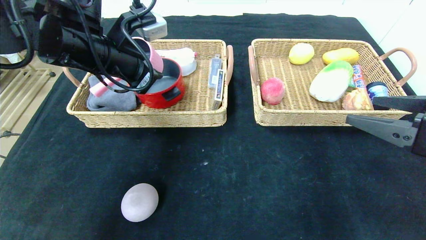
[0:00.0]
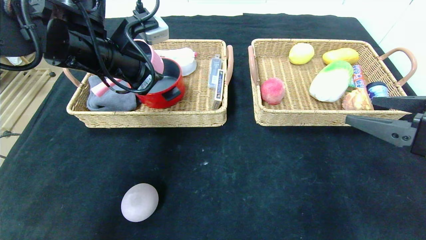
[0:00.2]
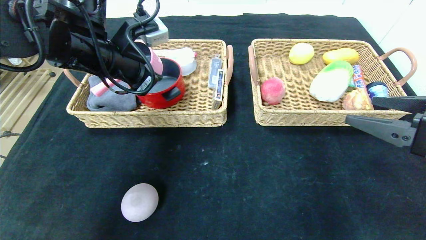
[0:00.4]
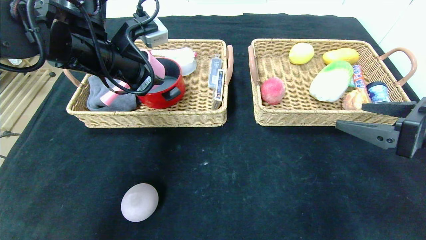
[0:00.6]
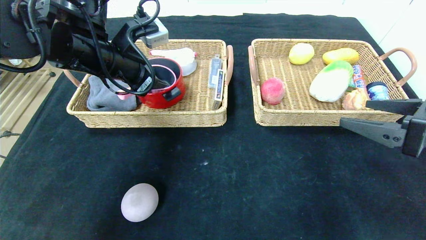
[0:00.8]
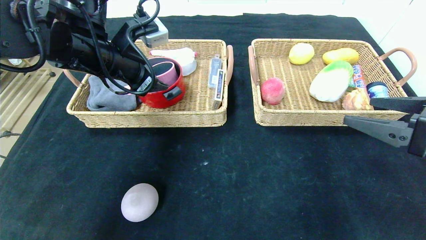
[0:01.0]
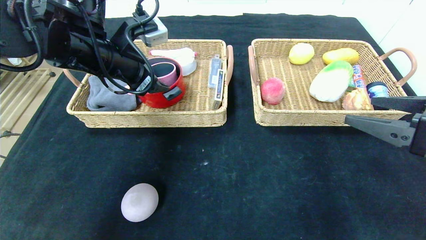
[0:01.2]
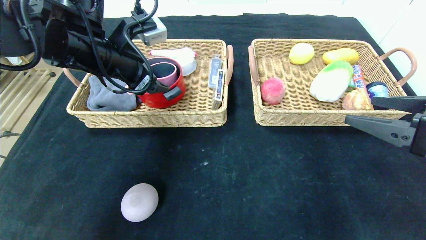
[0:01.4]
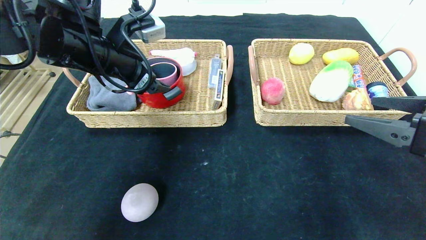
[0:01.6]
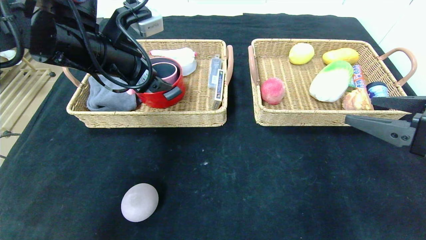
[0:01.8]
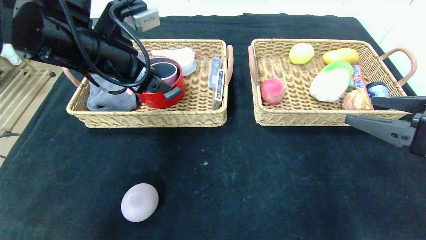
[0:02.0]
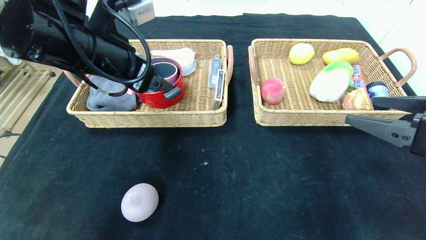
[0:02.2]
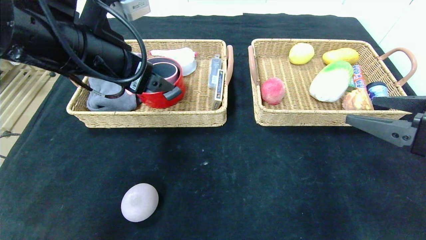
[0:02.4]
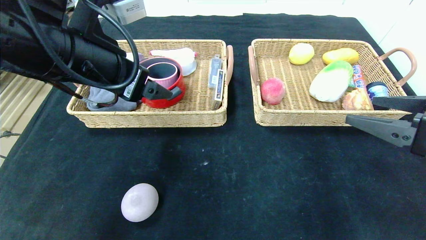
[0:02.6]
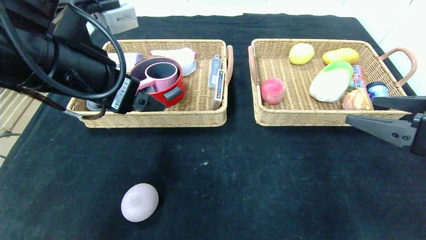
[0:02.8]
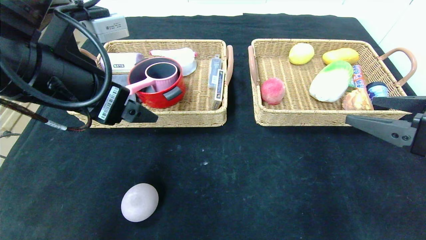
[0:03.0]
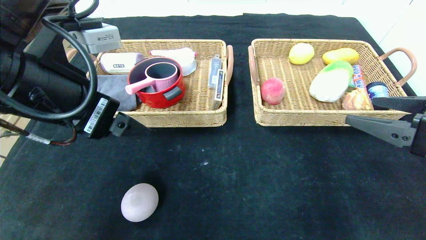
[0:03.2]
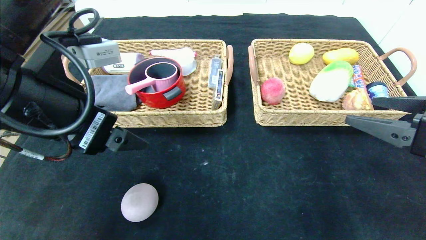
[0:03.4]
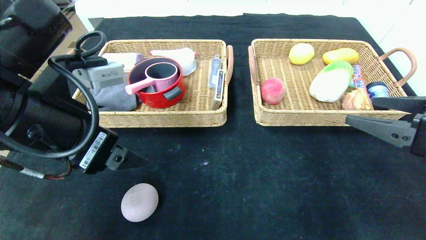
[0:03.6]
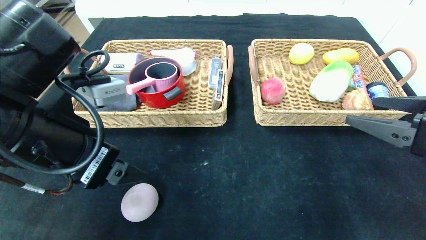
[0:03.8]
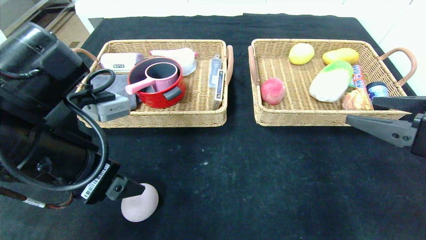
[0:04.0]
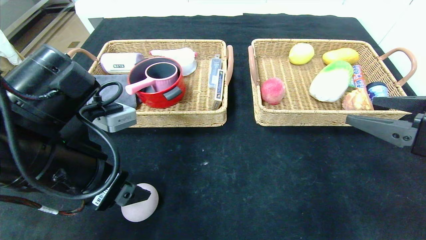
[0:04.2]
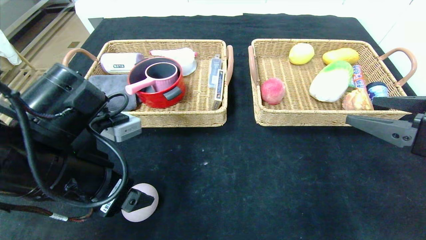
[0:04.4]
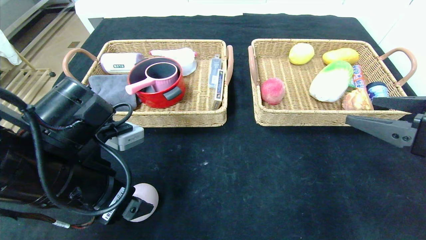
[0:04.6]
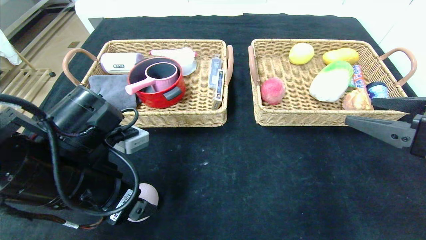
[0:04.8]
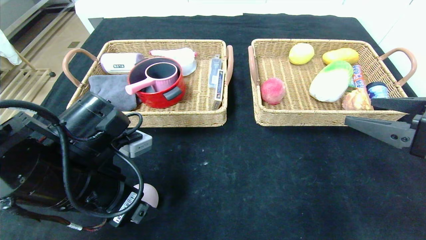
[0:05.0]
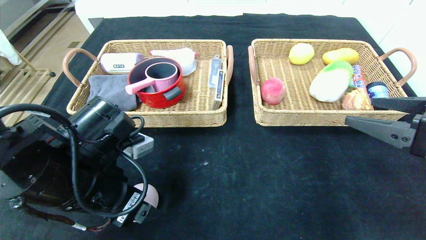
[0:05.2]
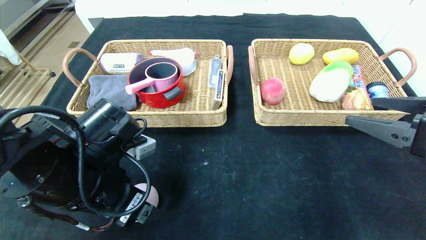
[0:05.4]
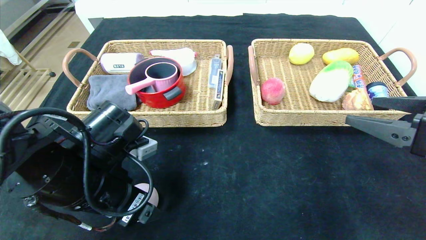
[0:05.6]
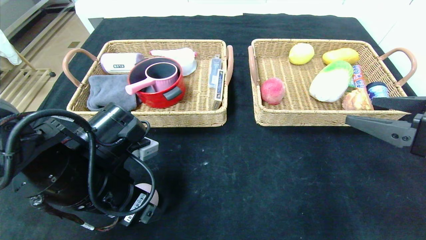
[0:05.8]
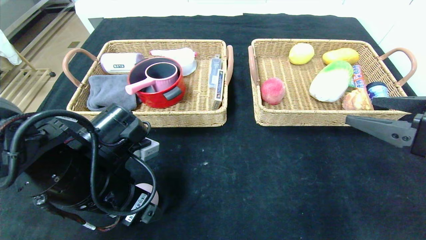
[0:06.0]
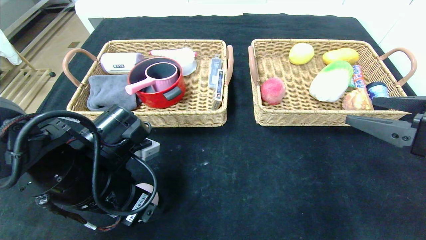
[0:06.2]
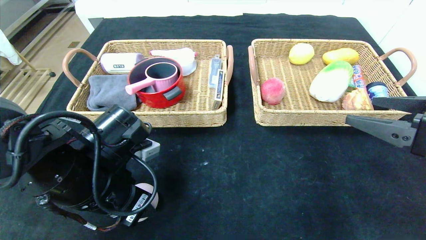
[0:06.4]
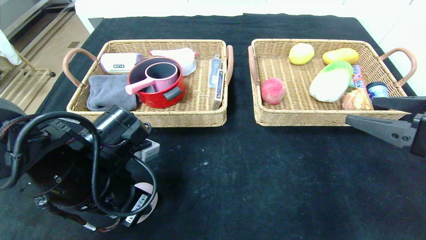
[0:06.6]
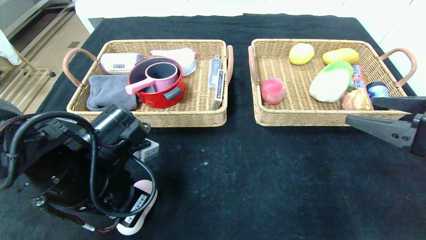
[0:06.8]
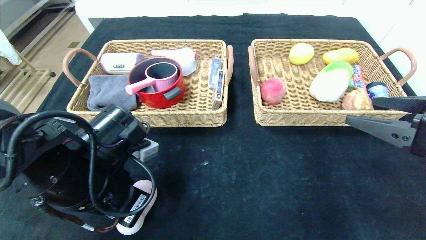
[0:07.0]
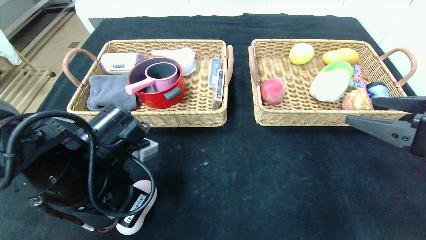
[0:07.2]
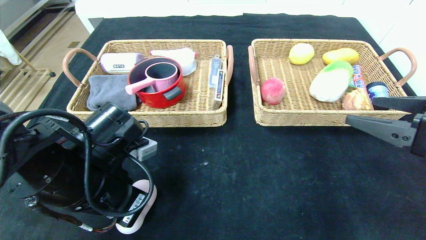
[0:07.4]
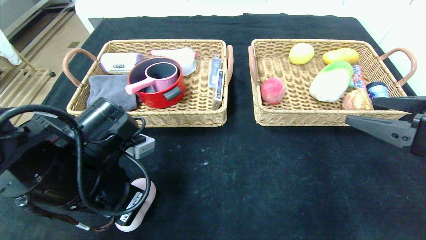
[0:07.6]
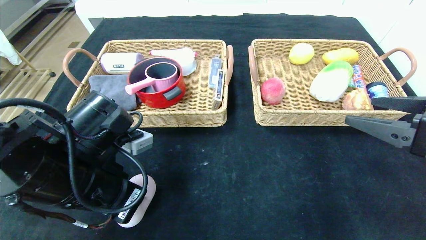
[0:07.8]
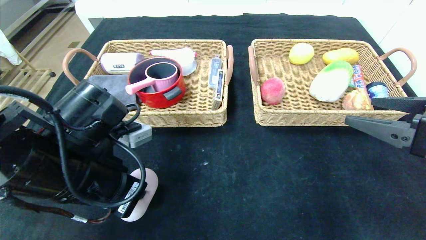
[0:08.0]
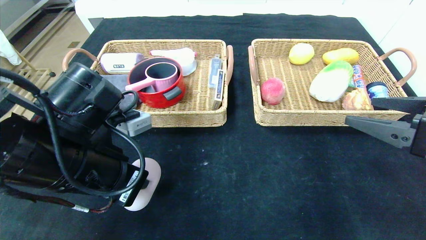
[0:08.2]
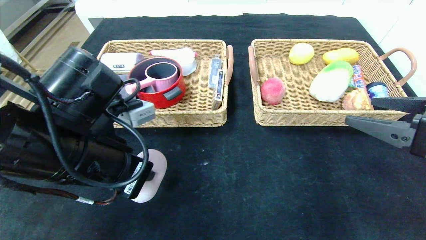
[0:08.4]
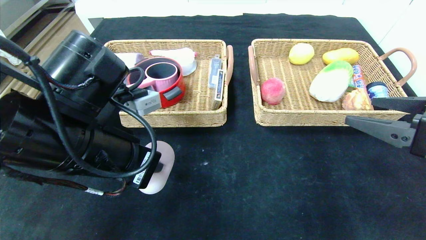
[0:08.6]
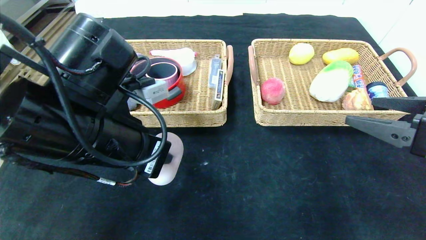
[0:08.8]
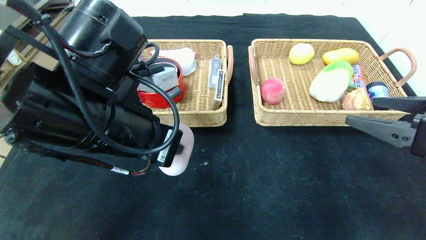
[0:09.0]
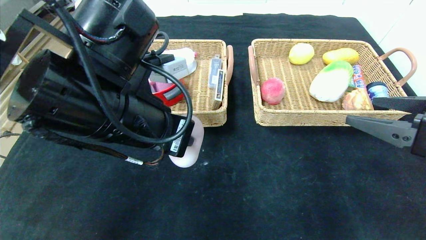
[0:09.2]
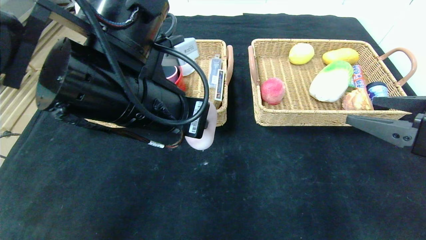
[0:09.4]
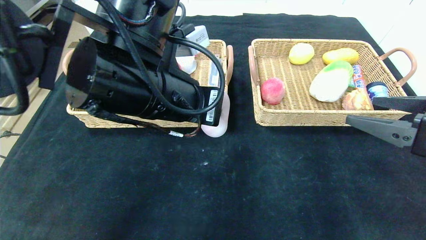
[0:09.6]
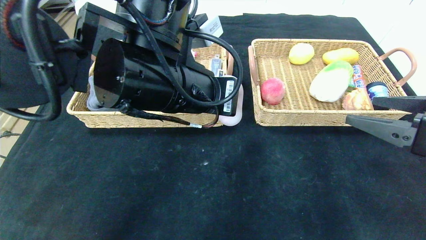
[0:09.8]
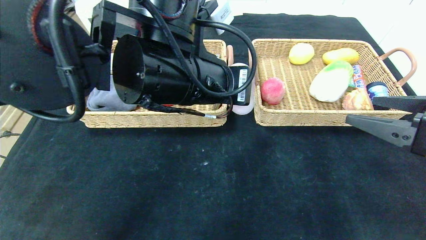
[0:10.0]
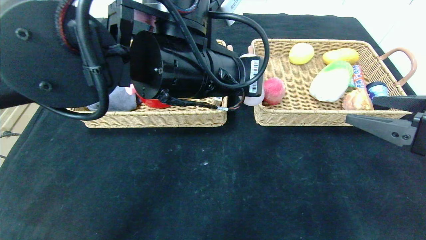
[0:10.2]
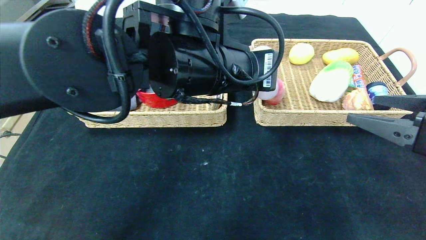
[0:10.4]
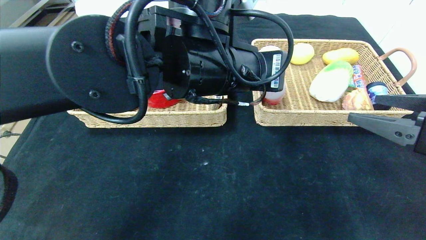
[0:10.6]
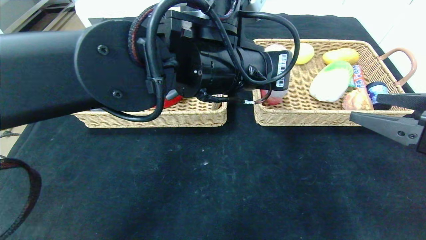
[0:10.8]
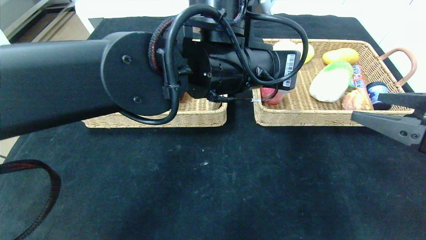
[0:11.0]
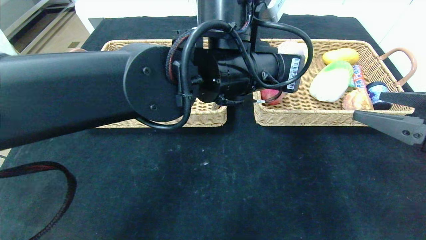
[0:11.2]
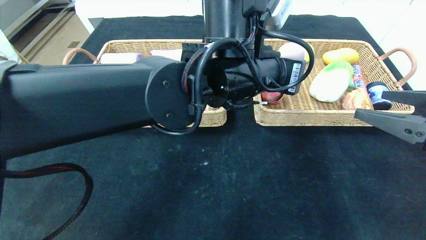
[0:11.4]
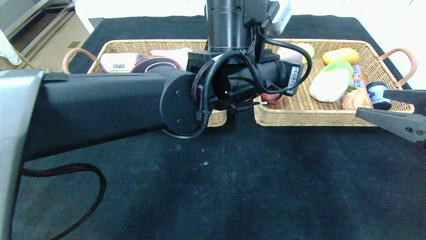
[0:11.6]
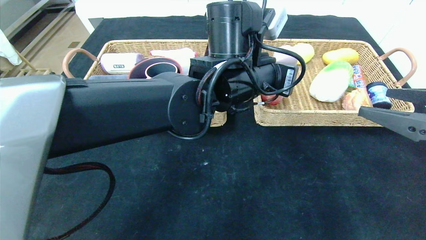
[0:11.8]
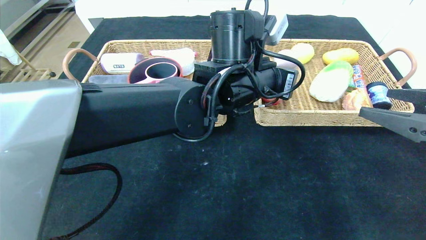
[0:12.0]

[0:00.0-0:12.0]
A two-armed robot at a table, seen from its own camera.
0:00.0 to 0:01.6: The left gripper opens up.
0:01.6 to 0:03.0: The left gripper is displaced backward by about 10 cm.
0:03.0 to 0:04.4: The left gripper heads downward, covering roughly 10 cm.
0:04.4 to 0:06.0: The left gripper ends up about 5 cm from where it was.
0:06.0 to 0:07.6: The left gripper closes.
0:07.6 to 0:09.0: The left gripper shifts about 10 cm upward and to the right.
0:09.0 to 0:10.4: The left gripper moves to the right, about 10 cm.
0:10.4 to 0:12.0: The left gripper heads forward and to the right, covering approximately 10 cm.

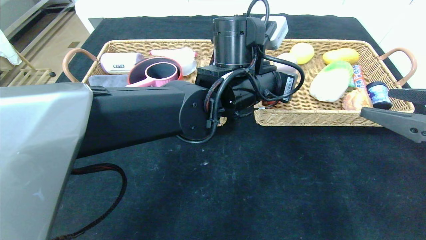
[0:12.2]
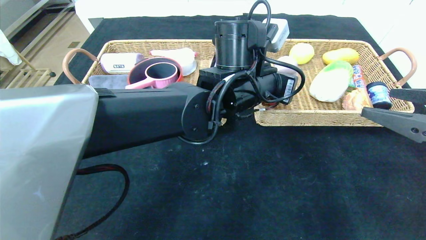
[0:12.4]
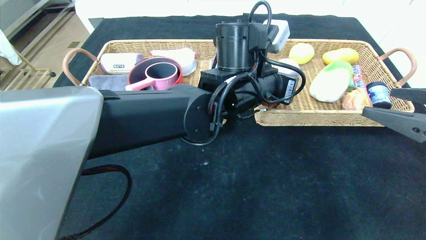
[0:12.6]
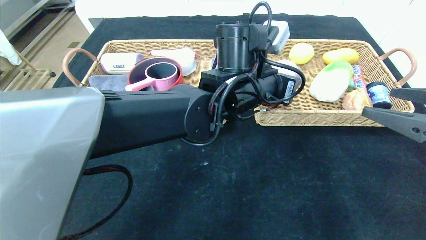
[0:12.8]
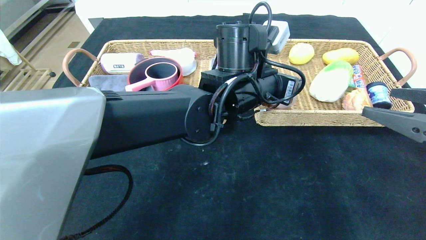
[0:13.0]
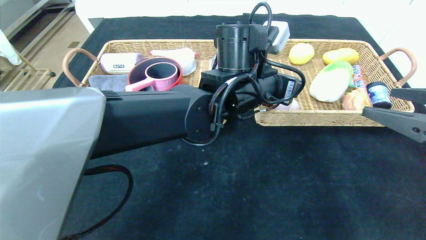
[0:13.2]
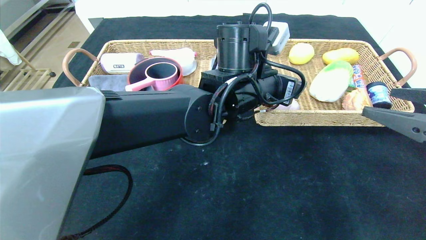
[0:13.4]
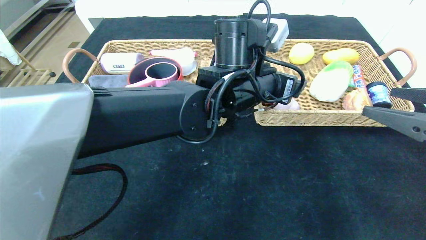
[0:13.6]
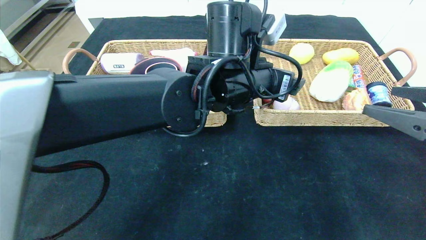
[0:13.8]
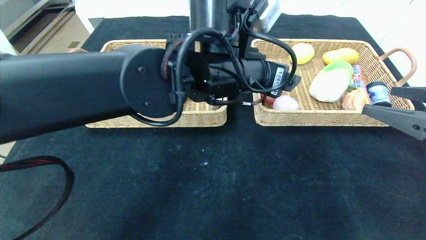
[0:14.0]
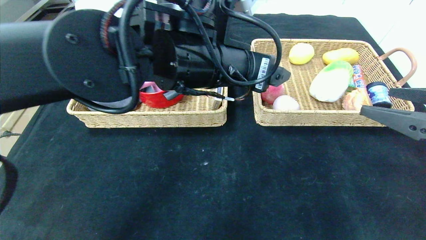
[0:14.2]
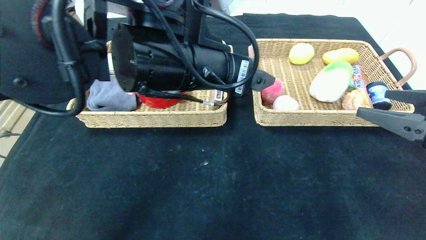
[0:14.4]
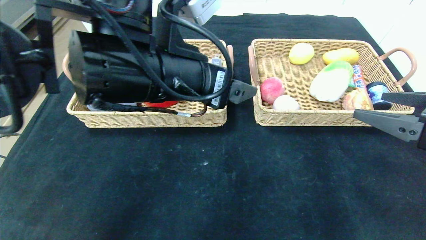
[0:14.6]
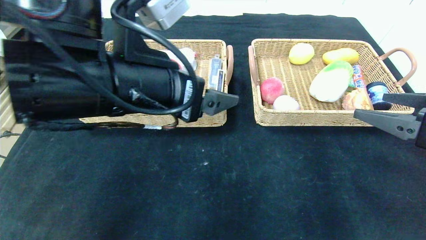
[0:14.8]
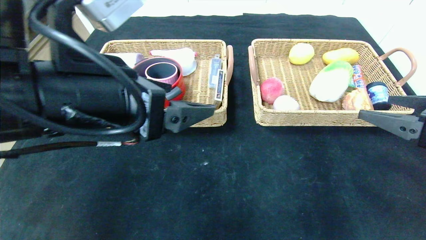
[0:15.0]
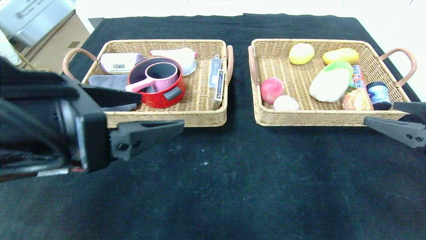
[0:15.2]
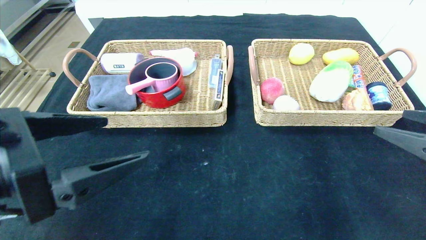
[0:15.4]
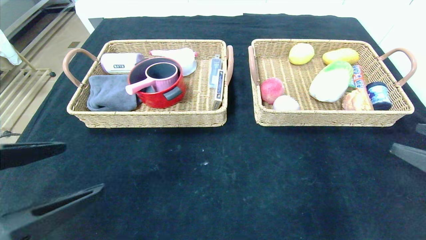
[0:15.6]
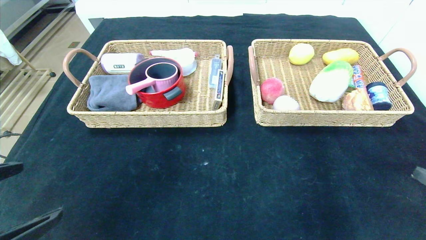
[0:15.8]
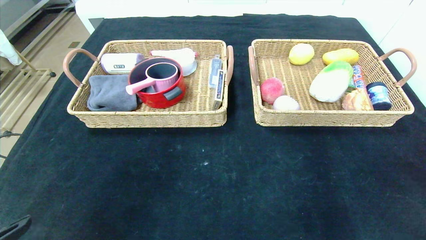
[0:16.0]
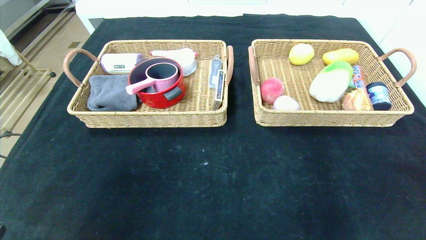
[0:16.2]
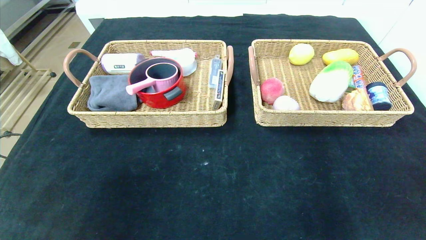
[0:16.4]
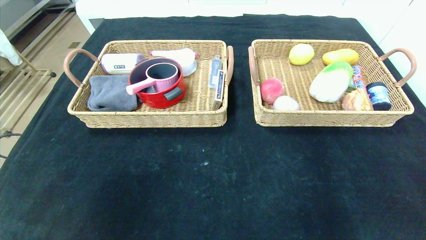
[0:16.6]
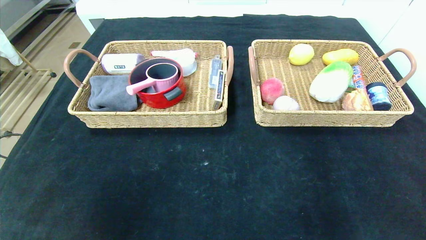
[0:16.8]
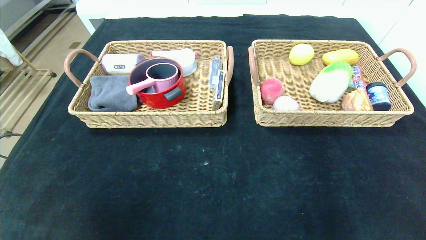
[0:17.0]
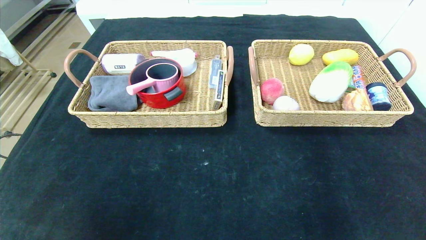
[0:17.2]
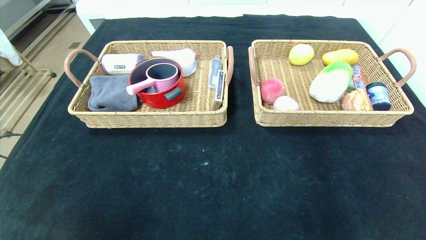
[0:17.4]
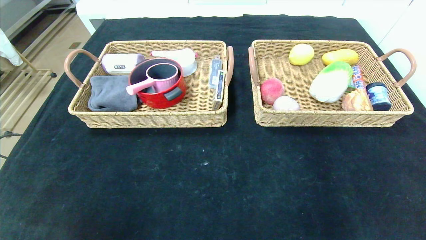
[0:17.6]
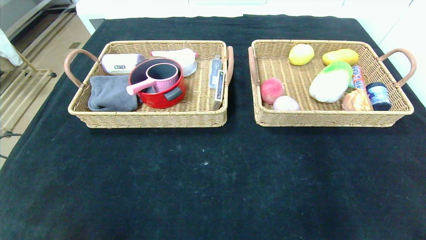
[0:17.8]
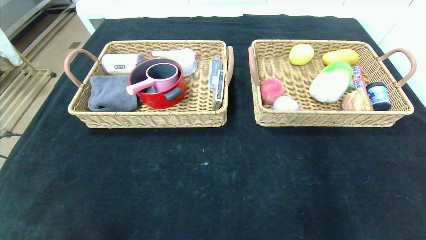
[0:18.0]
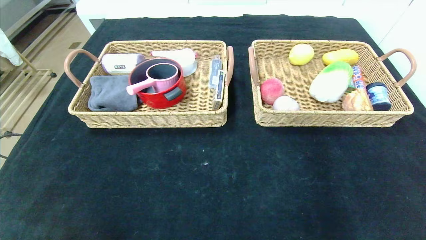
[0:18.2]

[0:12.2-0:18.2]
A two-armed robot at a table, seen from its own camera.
0:12.2 to 0:13.8: The left gripper opens its fingers.
0:13.8 to 0:15.2: The left gripper goes about 25 cm to the left and backward.
0:15.2 to 0:16.6: The left gripper is displaced backward, to the left and downward by approximately 25 cm. Meanwhile the right gripper goes approximately 20 cm backward and downward.
